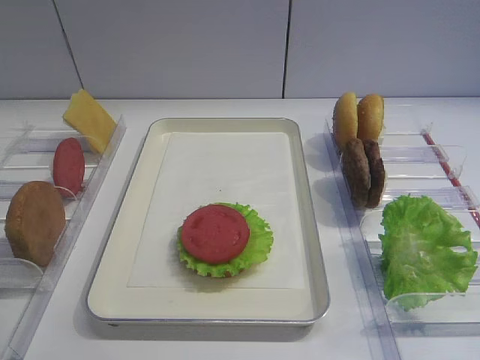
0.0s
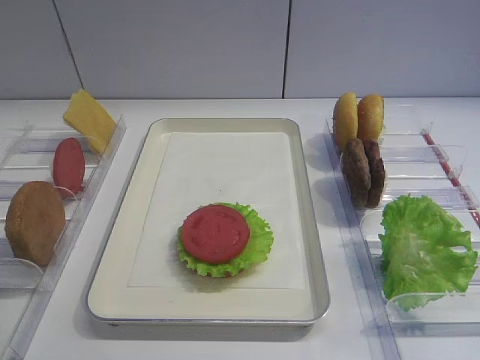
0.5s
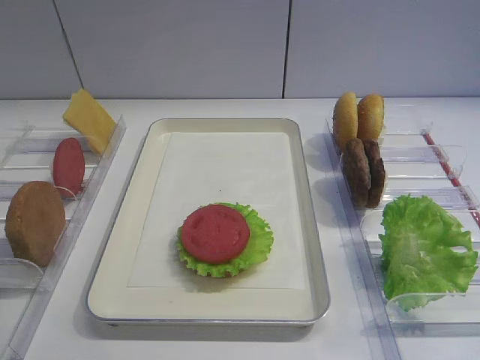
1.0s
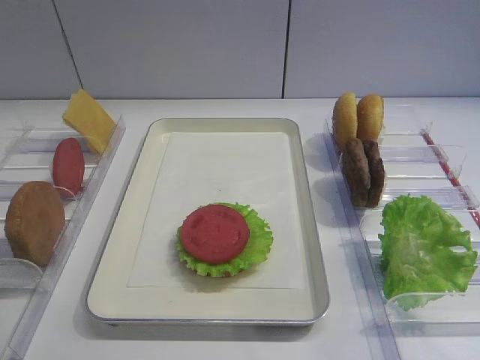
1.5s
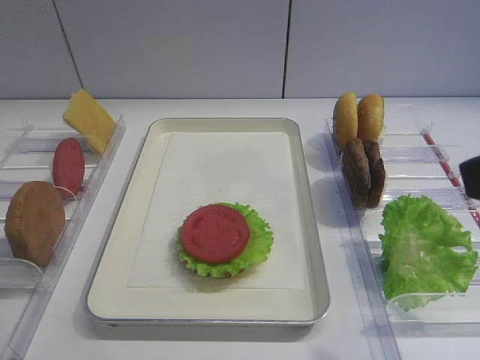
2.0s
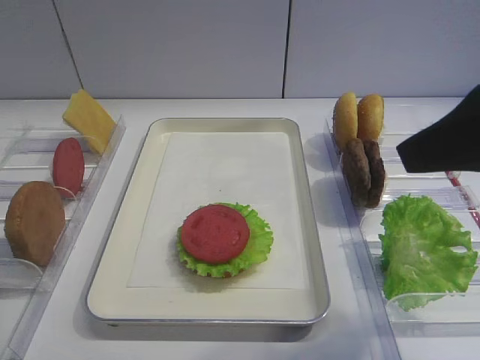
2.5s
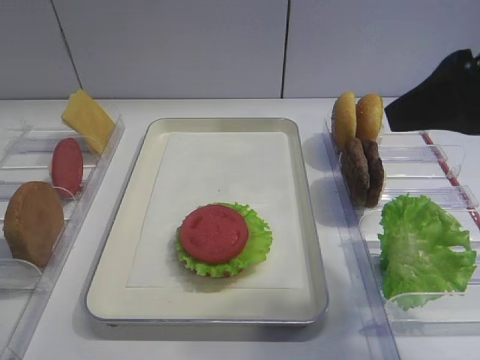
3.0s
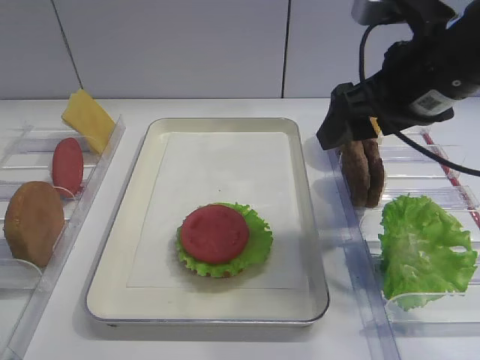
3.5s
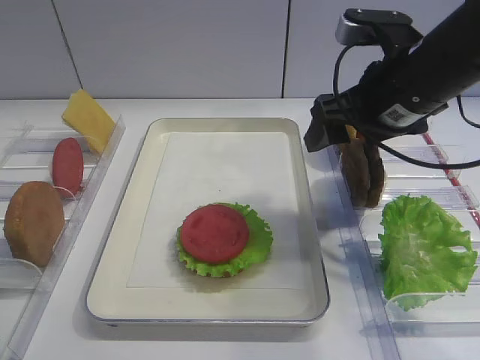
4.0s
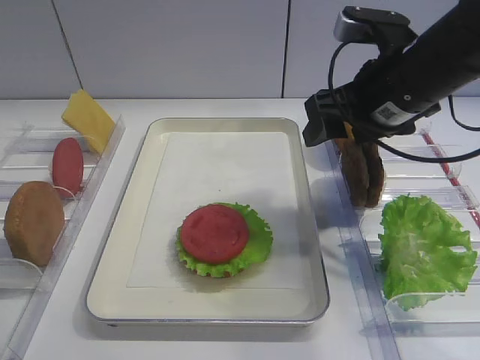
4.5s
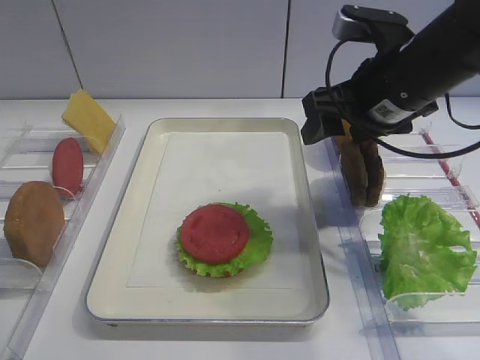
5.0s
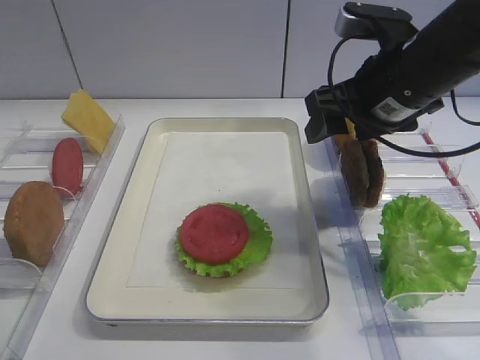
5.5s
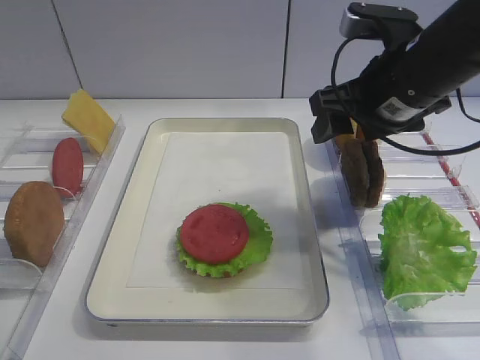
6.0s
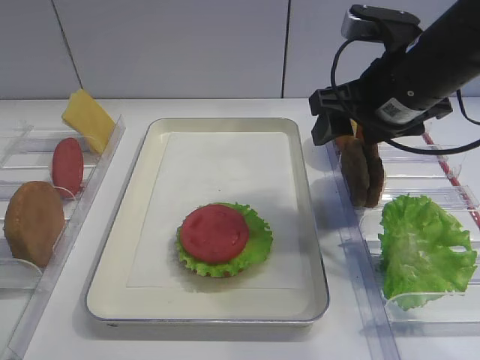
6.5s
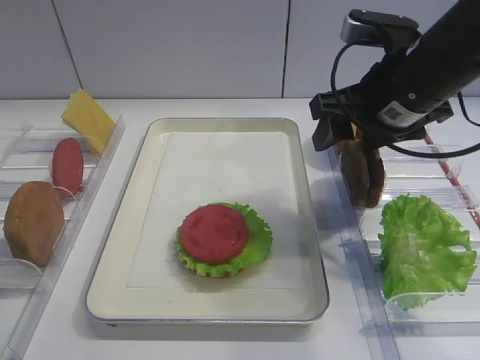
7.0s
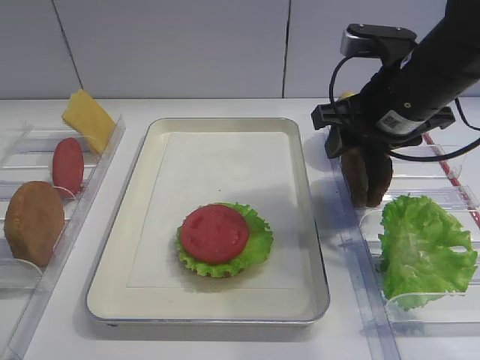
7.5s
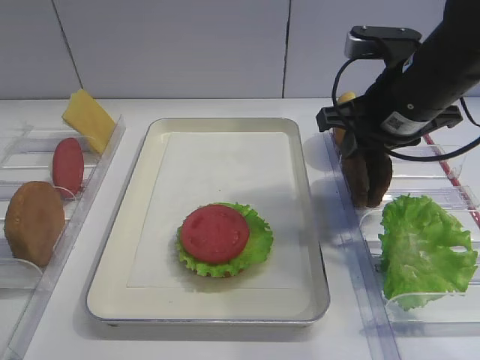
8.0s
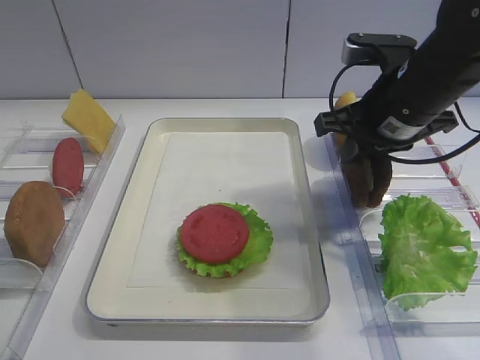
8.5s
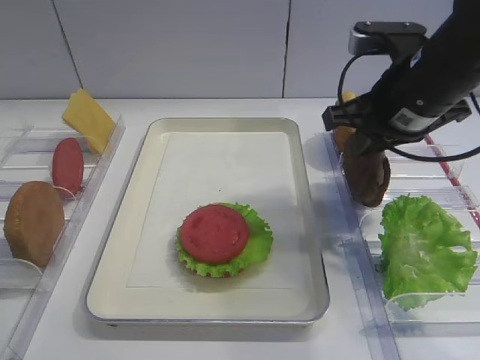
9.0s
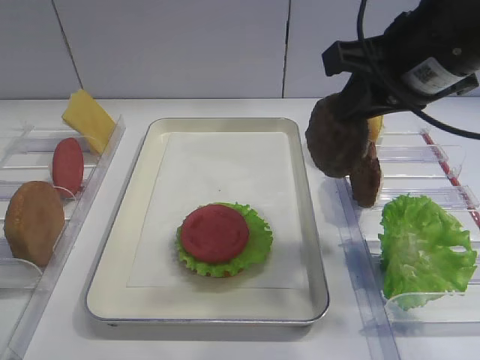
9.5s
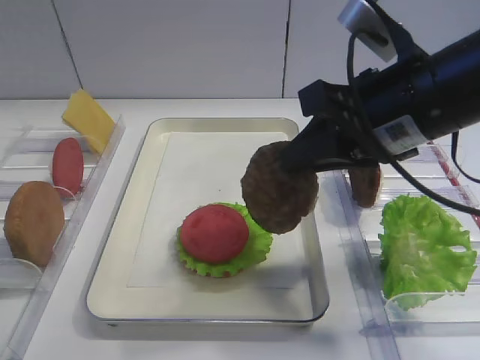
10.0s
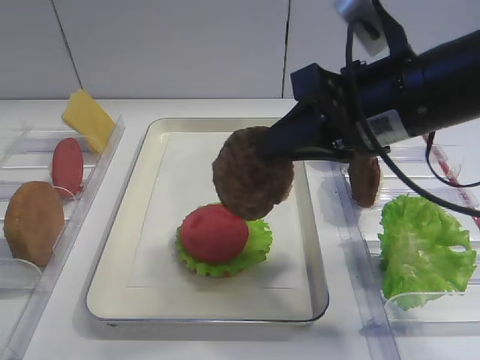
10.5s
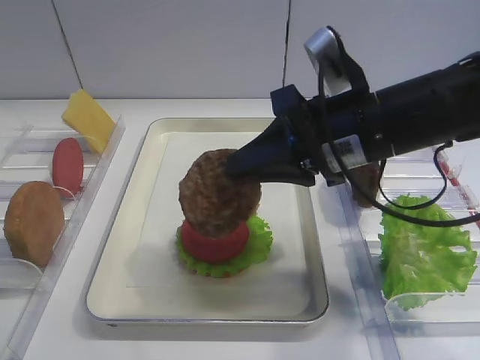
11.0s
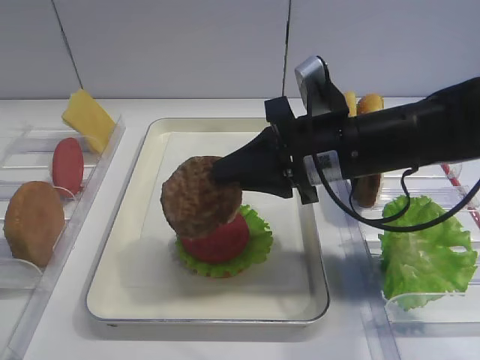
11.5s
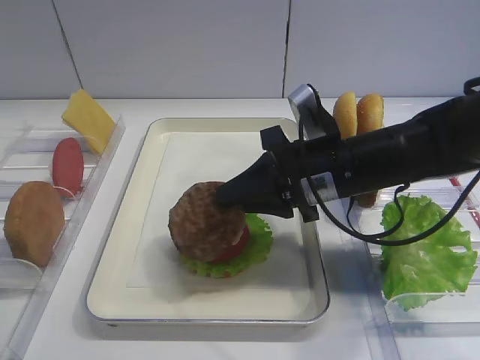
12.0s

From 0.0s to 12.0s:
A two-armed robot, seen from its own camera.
Step, from 0.0s to 9.0s: Pick up the cutlet with the right gripper.
From 2.0s to 4.0s: The right gripper travels forward and downward by roughly 25 cm.
From 4.0s to 6.0s: The grippers stay close to where they were, moving slightly.
From 6.0s to 8.0s: The right gripper closes up.
From 8.0s to 10.0s: The right gripper heads backward, covering approximately 10 cm.
From 10.0s to 12.0s: The right gripper is displaced downward by about 10 cm.

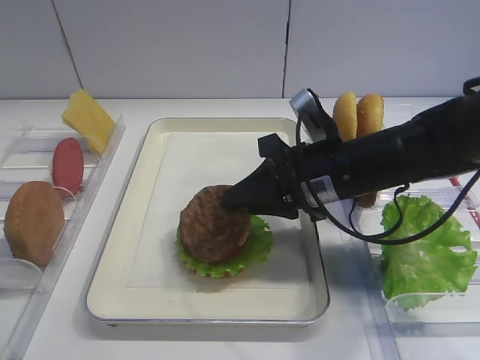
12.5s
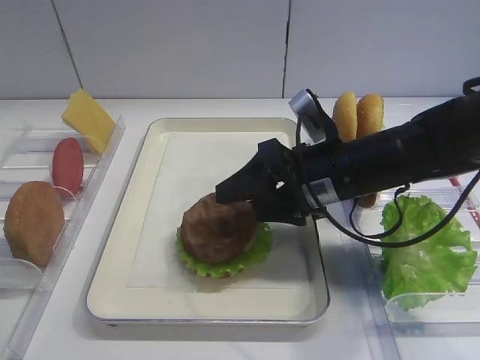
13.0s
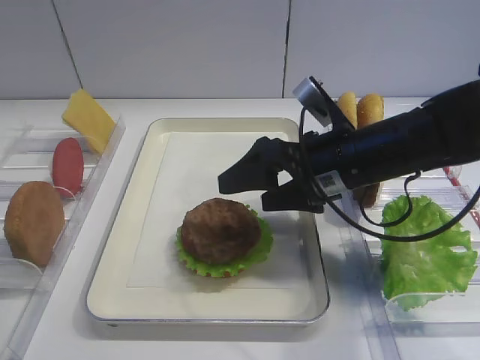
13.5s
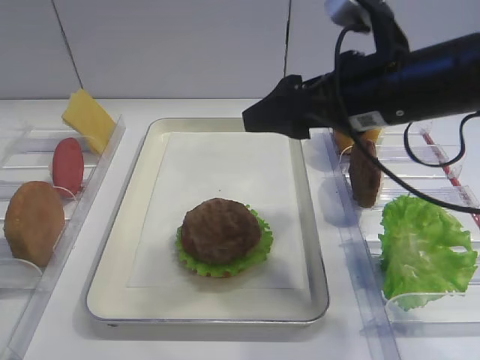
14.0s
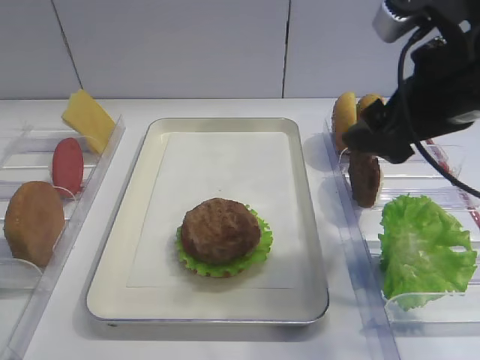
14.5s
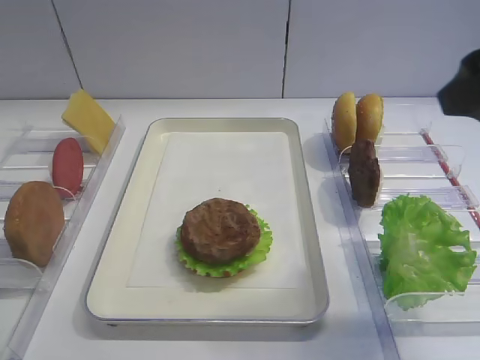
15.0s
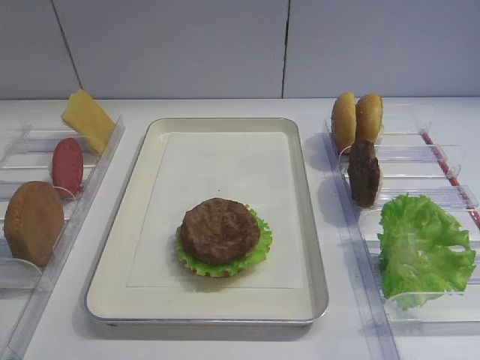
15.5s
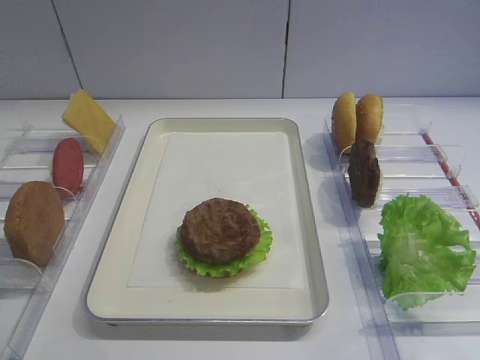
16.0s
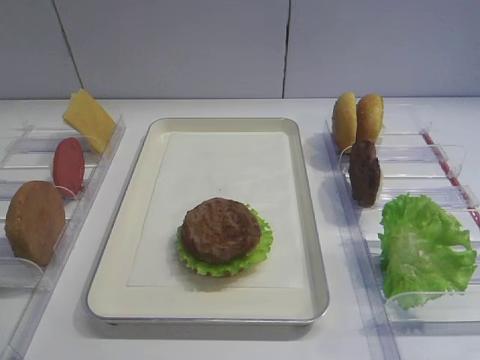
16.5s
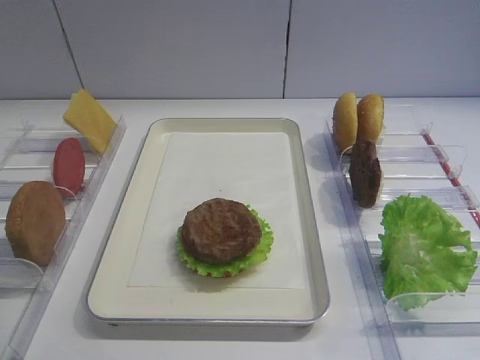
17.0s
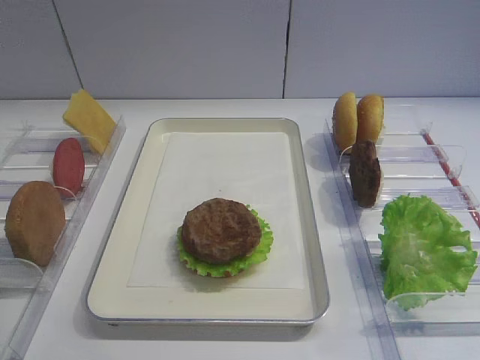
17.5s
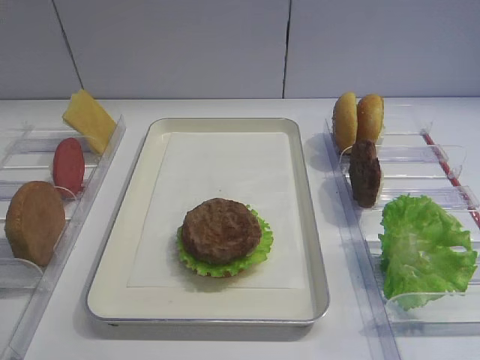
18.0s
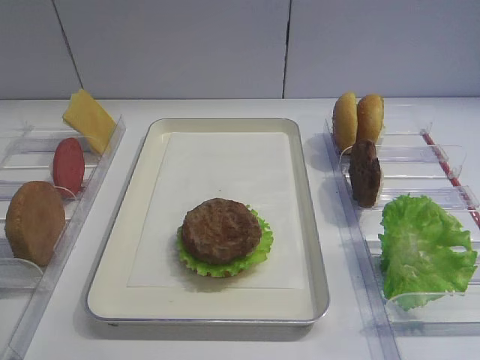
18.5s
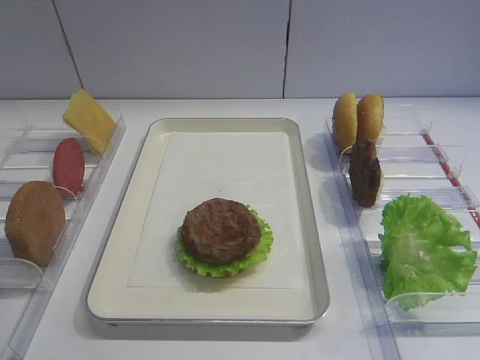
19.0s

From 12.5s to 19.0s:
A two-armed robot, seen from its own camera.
From 12.5s to 14.5s: The right gripper travels upward and to the right by approximately 15 cm, and opens its fingers.
From 14.5s to 17.0s: The right gripper moves backward, about 25 cm.
From 17.0s to 19.0s: The two grippers keep their place.

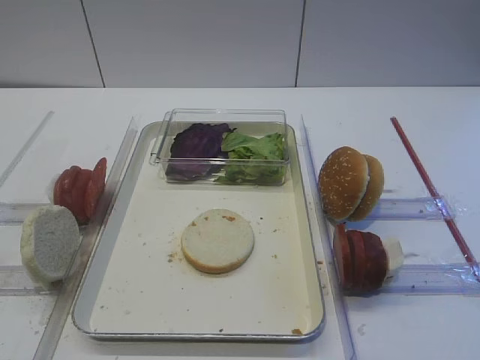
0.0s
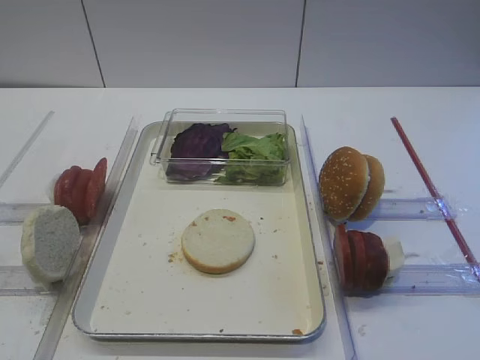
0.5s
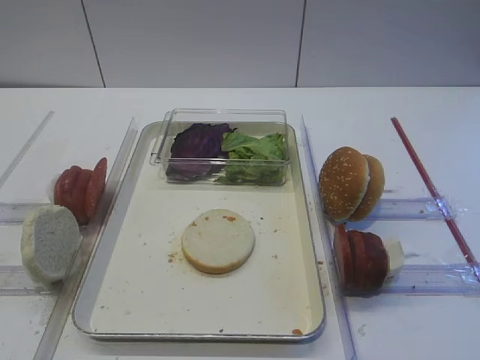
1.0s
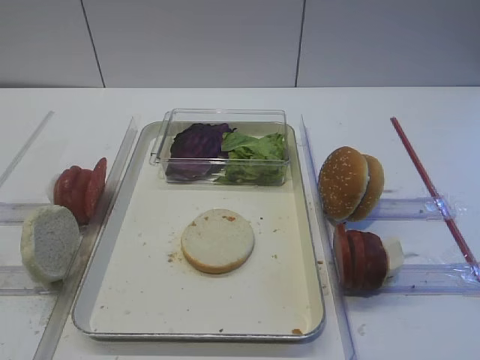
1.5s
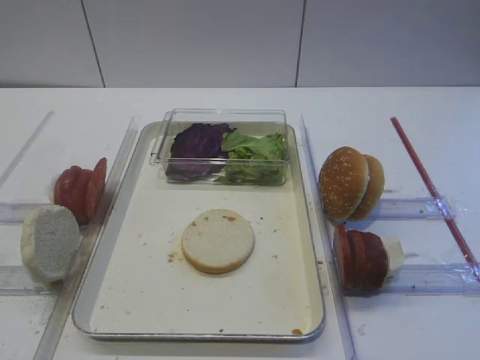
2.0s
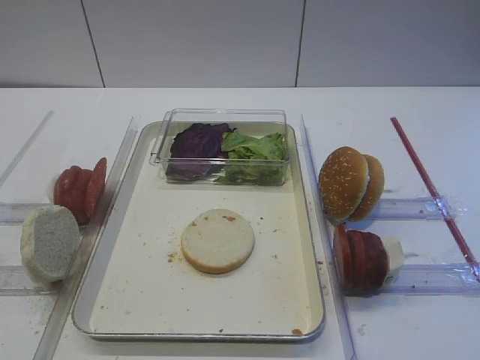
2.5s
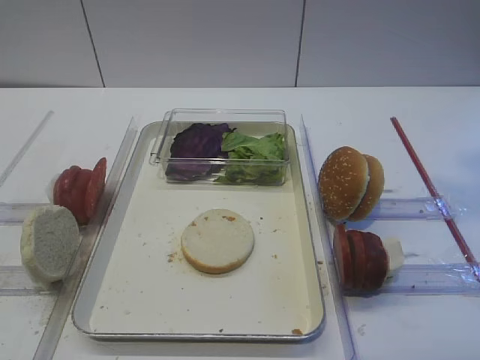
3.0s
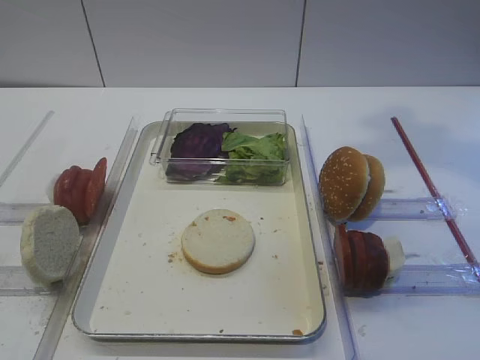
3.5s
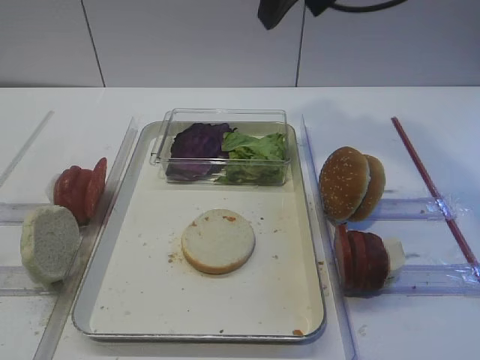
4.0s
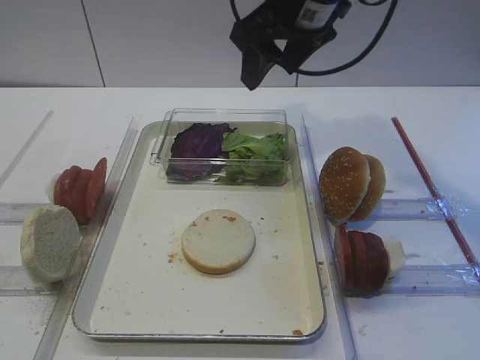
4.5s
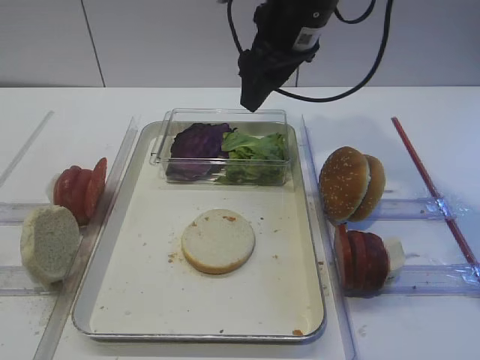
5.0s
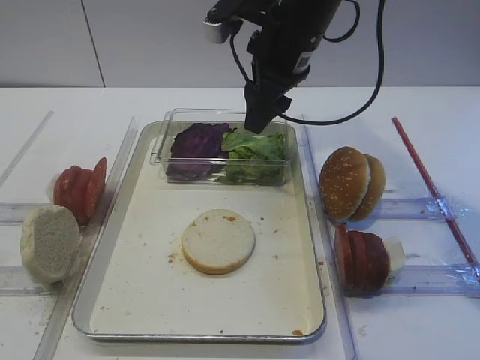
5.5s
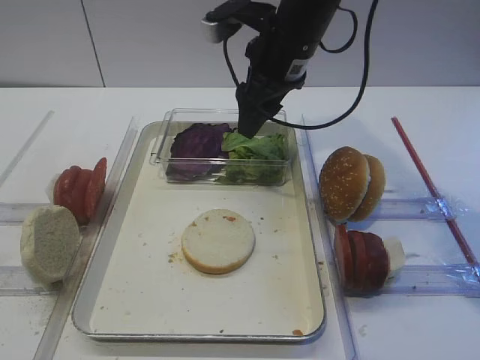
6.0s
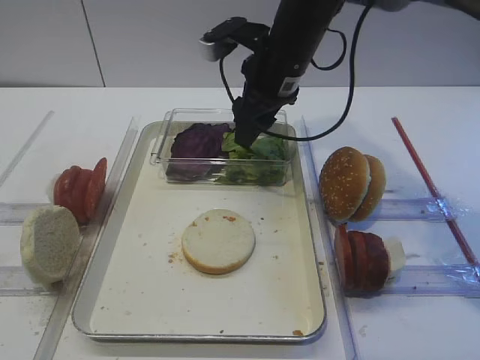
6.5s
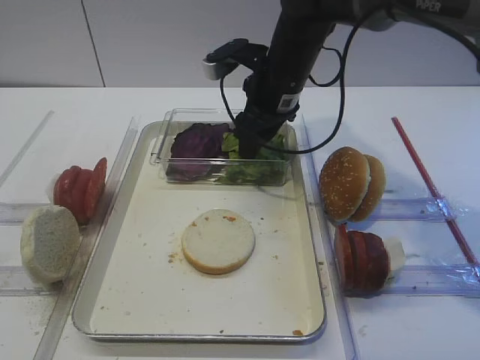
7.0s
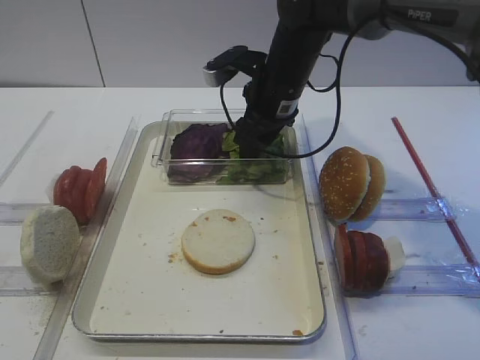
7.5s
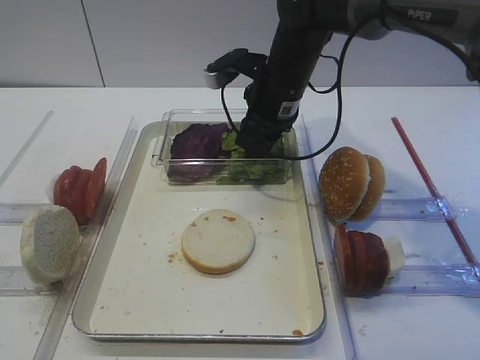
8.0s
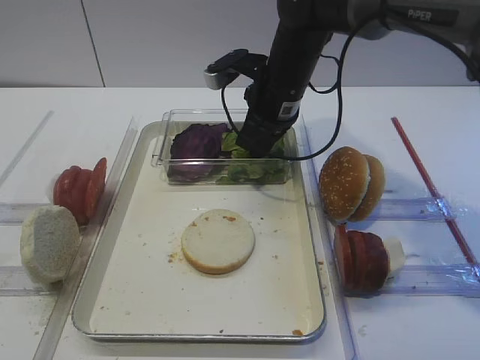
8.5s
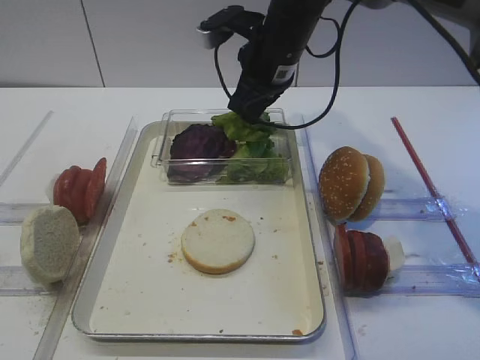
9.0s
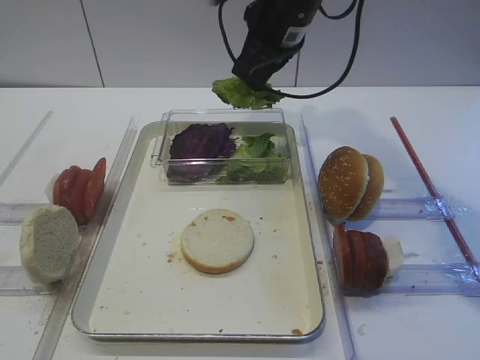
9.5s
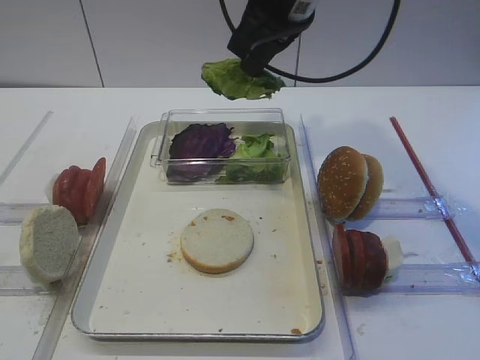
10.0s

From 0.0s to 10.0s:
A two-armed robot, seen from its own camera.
Step, from 0.0s to 9.5s: Pick up the lettuce leaf with the right gripper.
From 2.0s to 4.0s: The right gripper goes approximately 35 cm forward and to the left.
From 4.0s to 6.0s: The right gripper travels downward and forward by roughly 15 cm.
From 6.0s to 8.0s: The right gripper shifts roughly 5 cm downward, and closes up.
From 8.0s to 10.0s: The right gripper travels upward and backward by roughly 15 cm, and closes its fingers.
